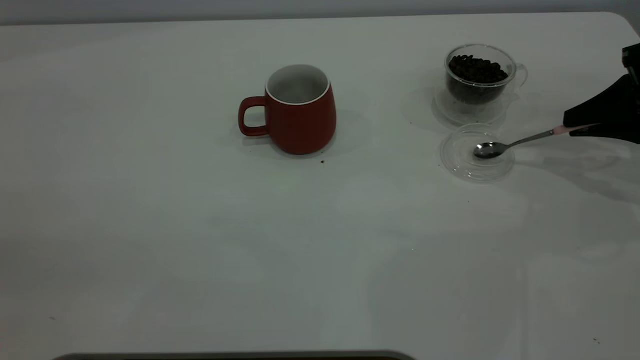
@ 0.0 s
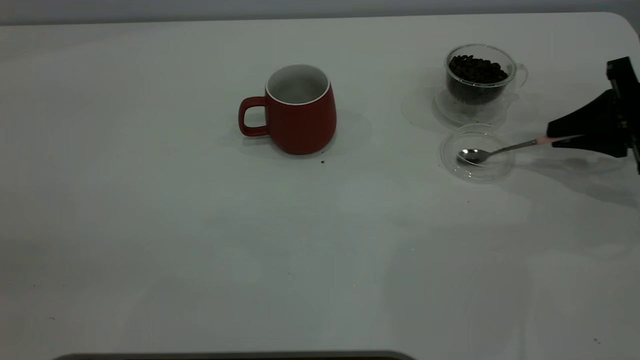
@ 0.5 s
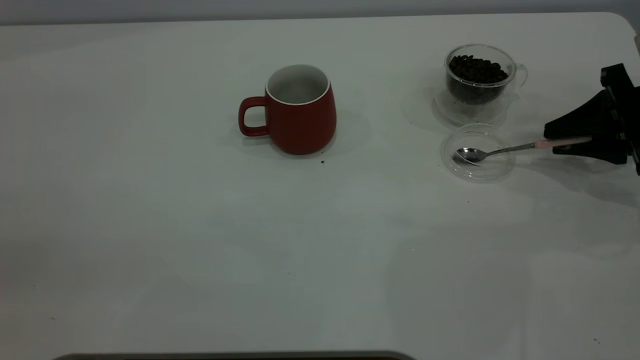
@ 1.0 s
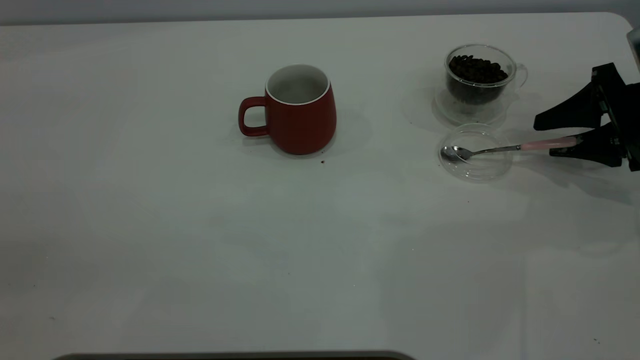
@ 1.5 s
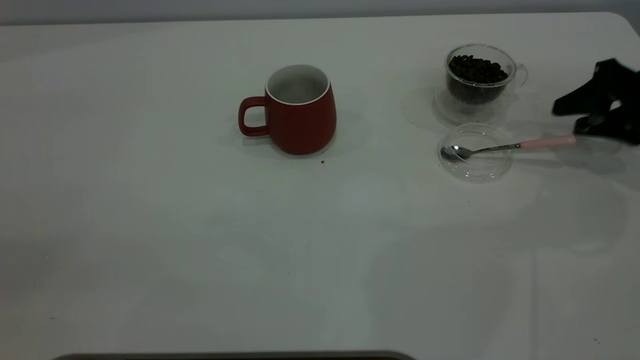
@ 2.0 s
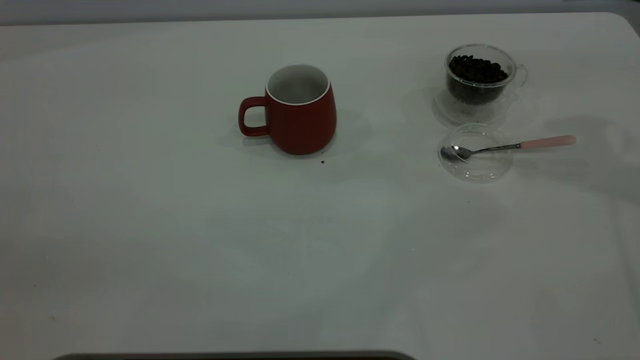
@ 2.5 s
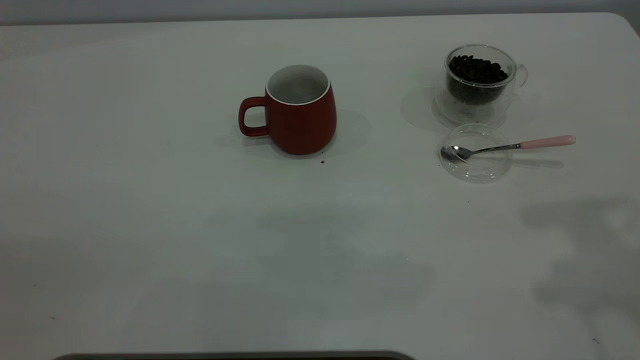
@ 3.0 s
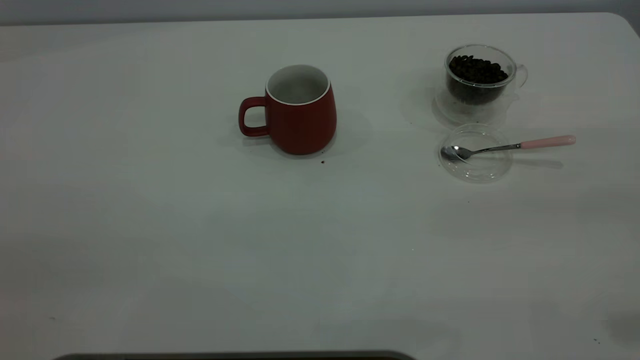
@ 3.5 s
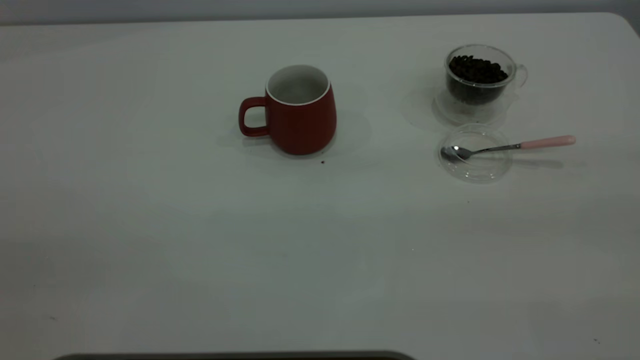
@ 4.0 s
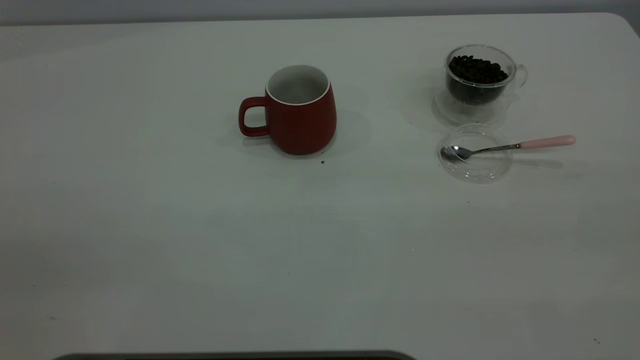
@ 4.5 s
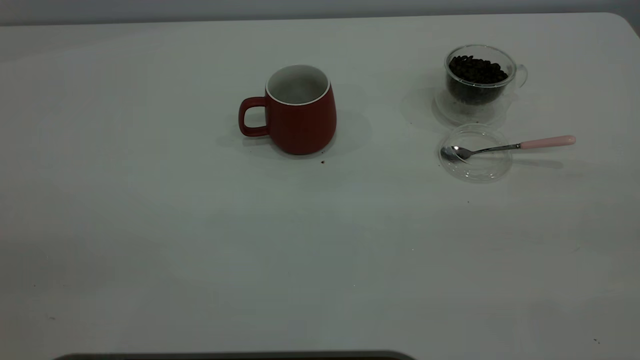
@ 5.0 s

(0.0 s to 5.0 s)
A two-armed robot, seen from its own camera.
Task of the whole recording: the left gripper place the red cup in the center of the table, the right gripper take the pink spoon from the cup lid and scoop out the coffee beans from the coffee cup and put them into the red cup, the right gripper put the spoon back into the cup lid.
Step, 0.0 s - 2.0 s: Place the spoon back in its original place.
0.0 s - 2.5 s: The right gripper travels upward and to the left by approximately 15 cm, and opens up.
